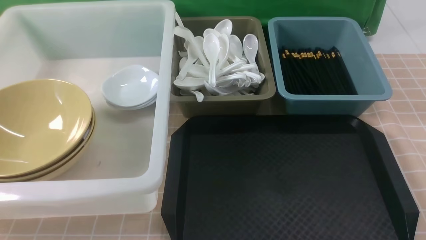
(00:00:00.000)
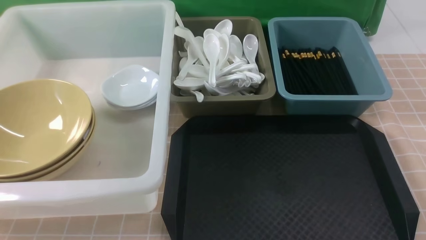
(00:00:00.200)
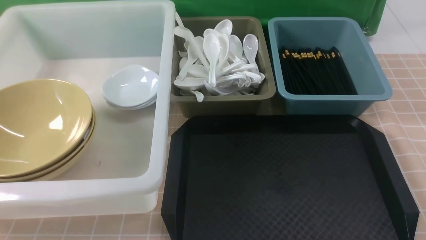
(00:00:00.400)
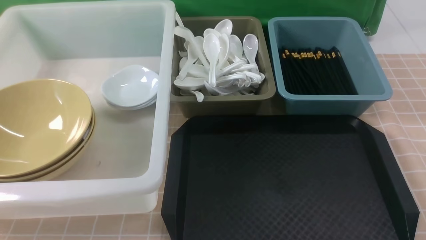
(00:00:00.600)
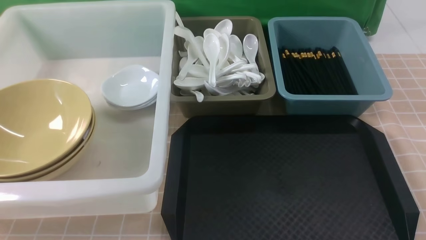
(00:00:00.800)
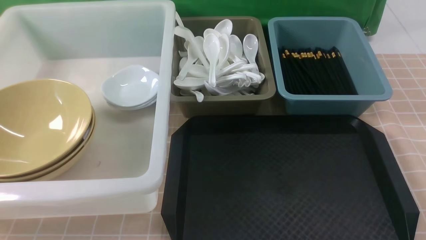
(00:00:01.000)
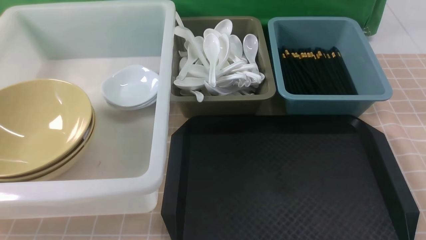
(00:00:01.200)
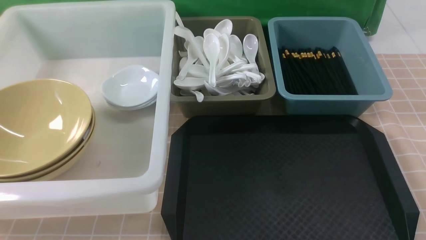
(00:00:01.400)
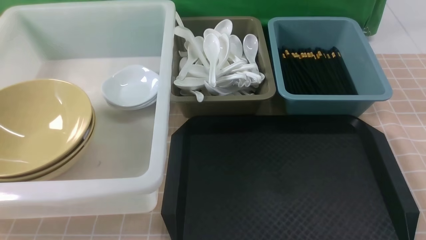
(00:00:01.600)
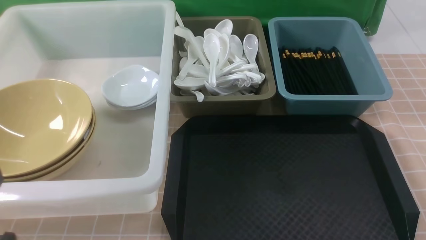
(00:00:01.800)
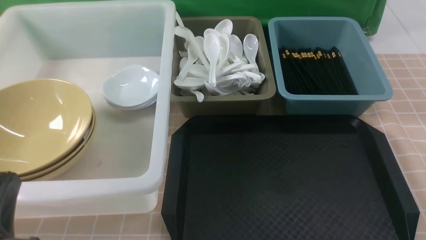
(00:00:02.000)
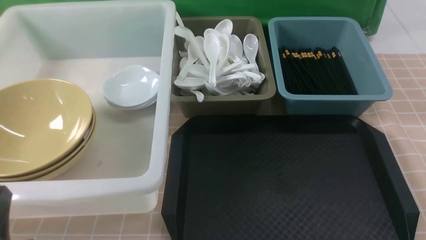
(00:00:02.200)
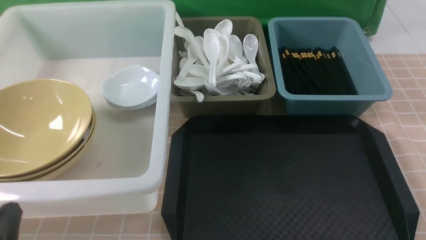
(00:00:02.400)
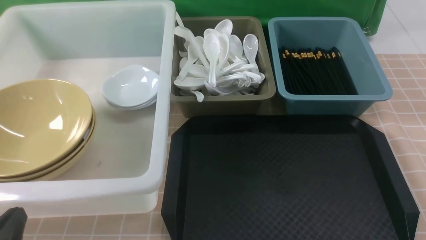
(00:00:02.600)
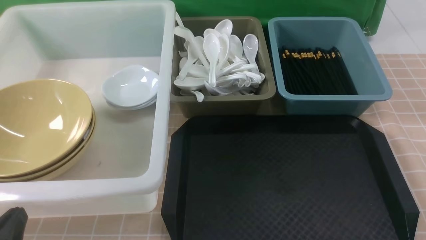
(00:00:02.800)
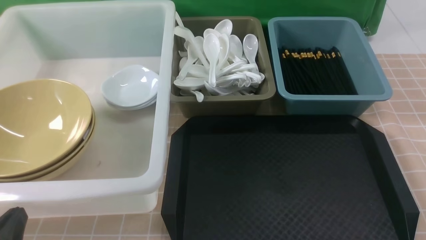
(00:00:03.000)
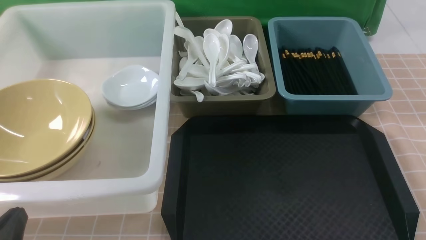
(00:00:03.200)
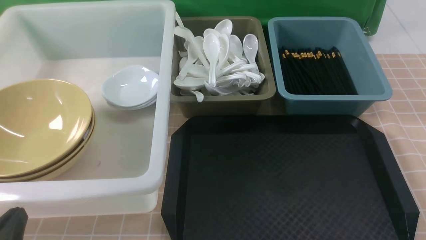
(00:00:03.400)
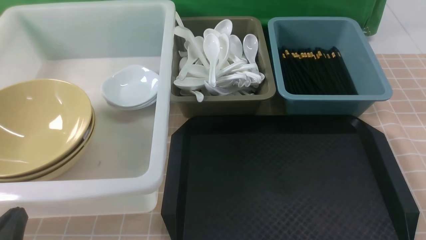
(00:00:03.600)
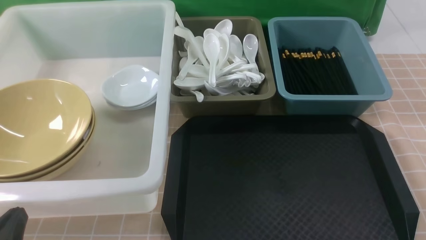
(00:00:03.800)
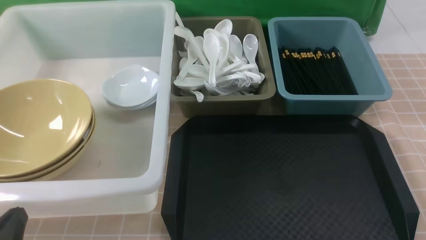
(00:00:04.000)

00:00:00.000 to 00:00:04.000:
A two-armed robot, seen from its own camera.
Task of the whole recording: on brown table put chopsticks spoon bowls plates into blue grey white boxes.
00:00:01.400 to 00:00:02.600: The left gripper shifts approximately 15 cm downward.
00:00:02.600 to 00:00:04.000: The two grippers keep their place.
